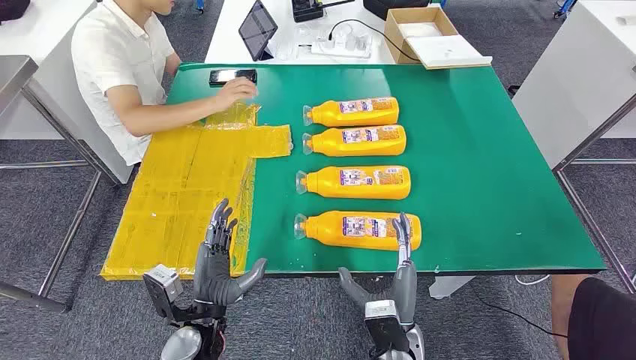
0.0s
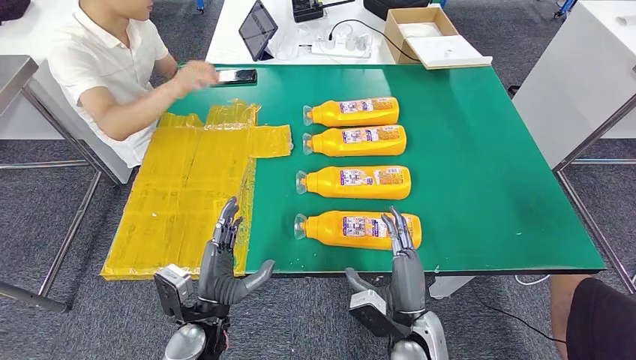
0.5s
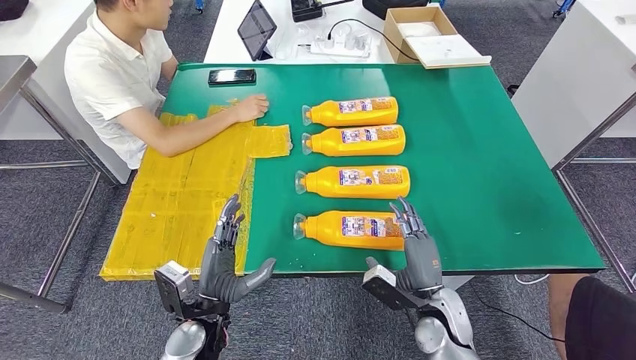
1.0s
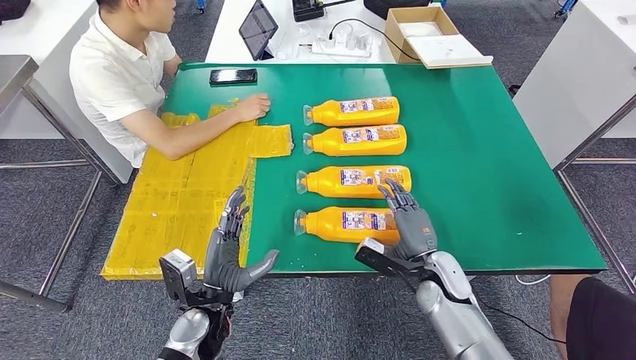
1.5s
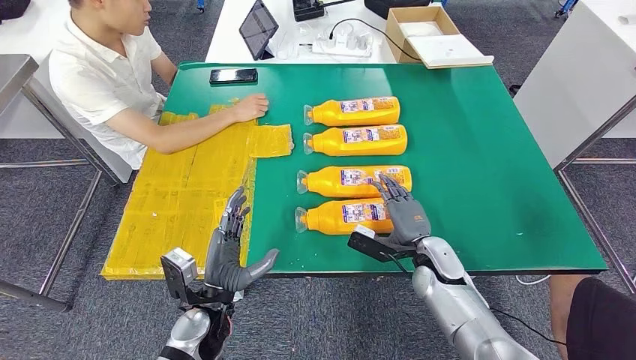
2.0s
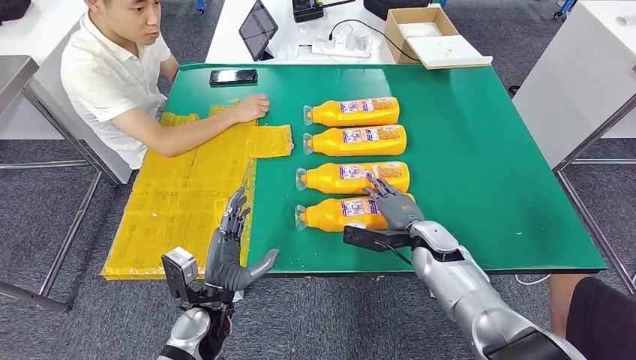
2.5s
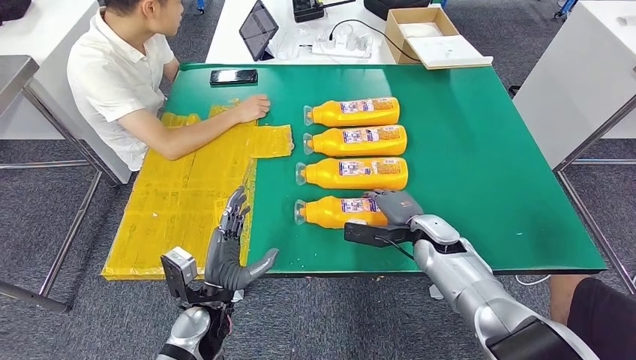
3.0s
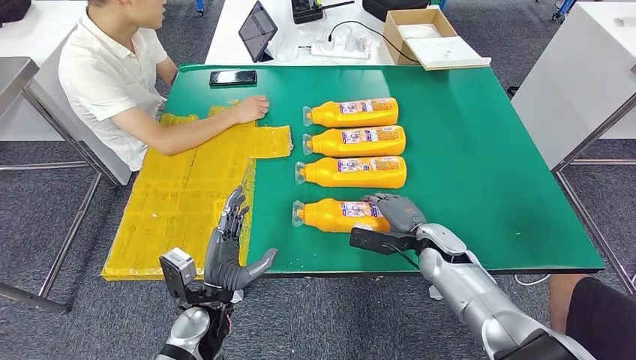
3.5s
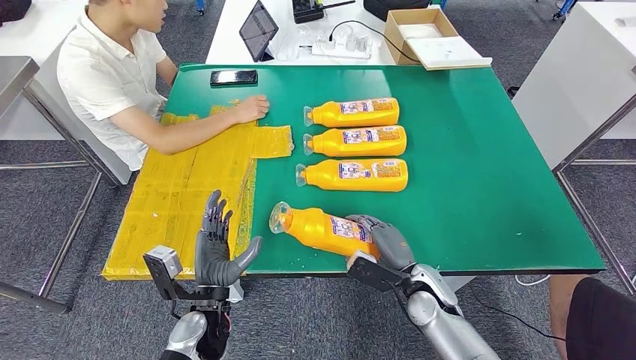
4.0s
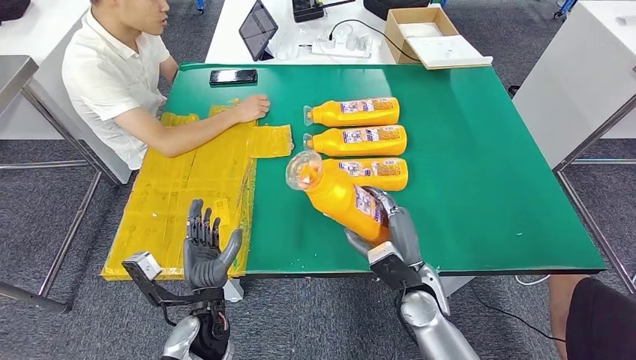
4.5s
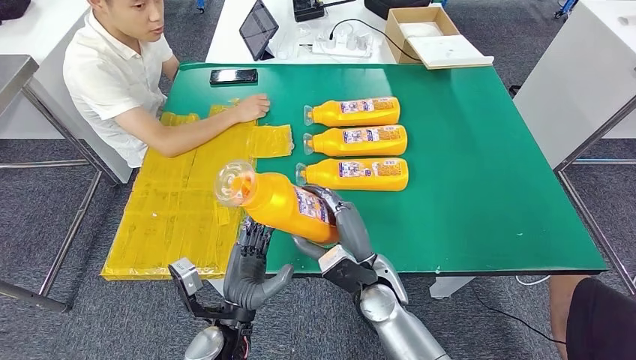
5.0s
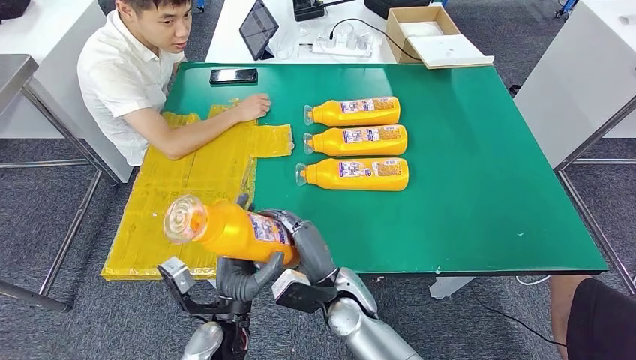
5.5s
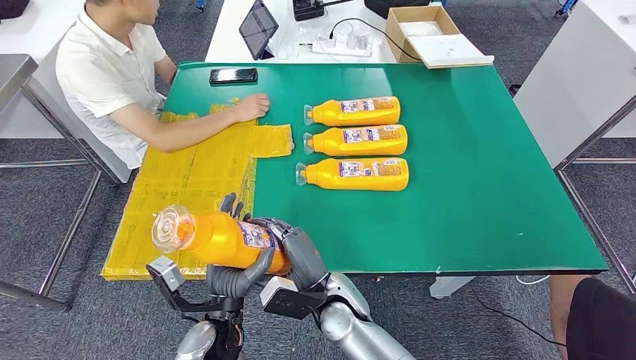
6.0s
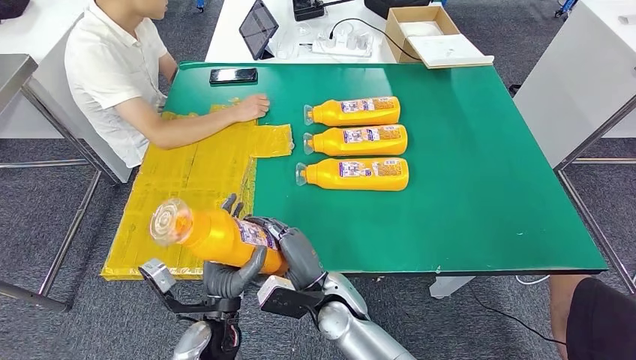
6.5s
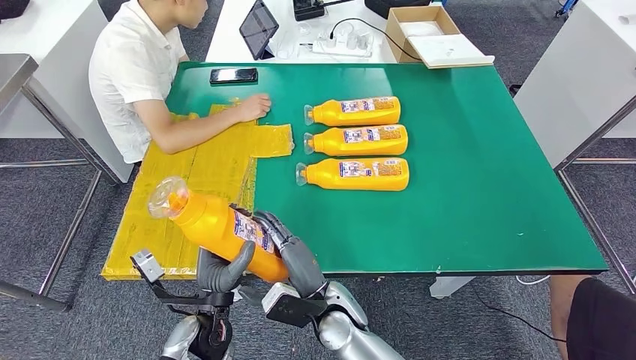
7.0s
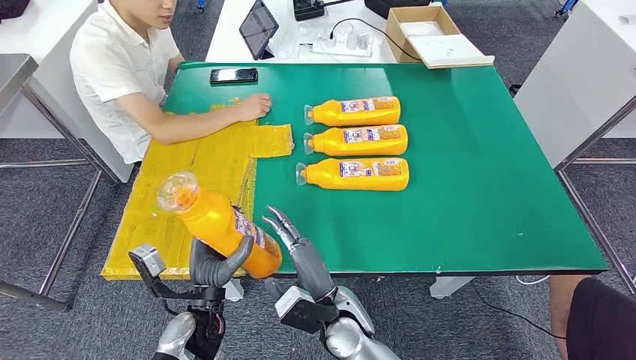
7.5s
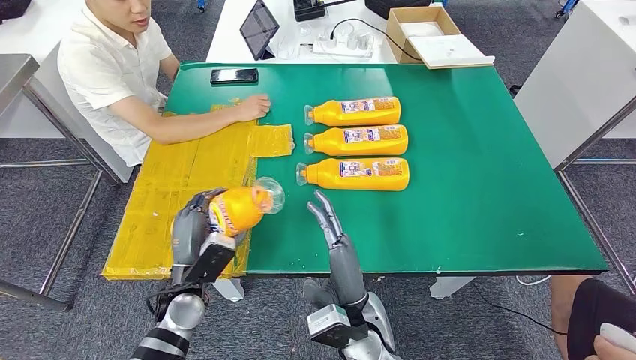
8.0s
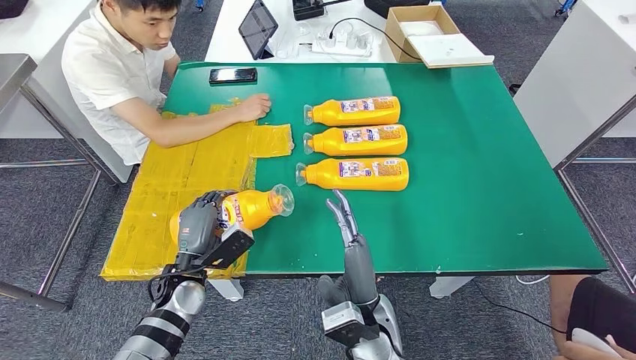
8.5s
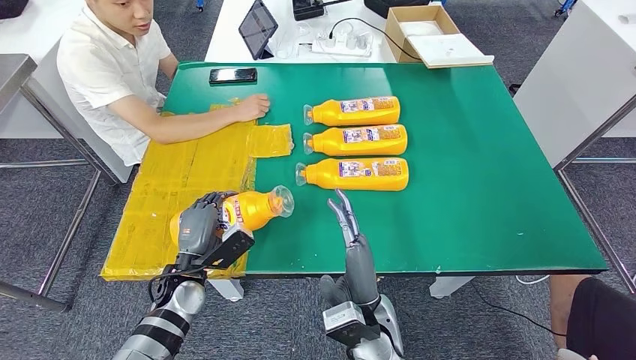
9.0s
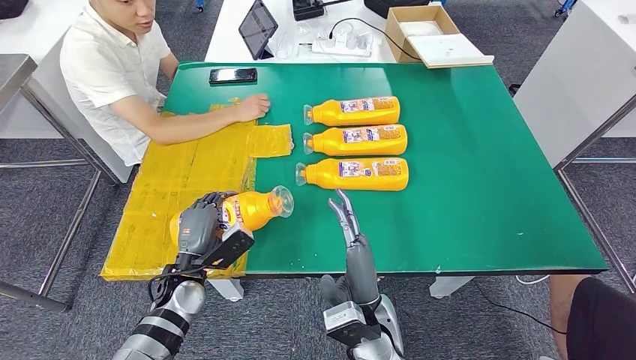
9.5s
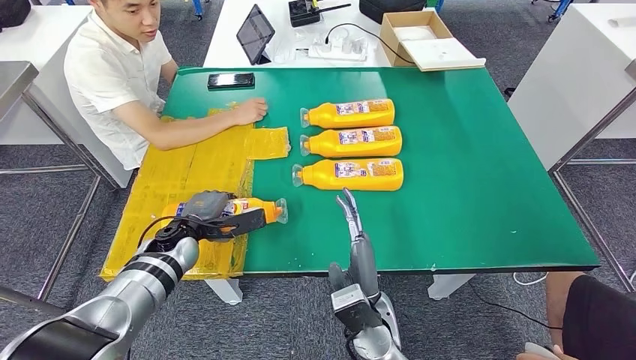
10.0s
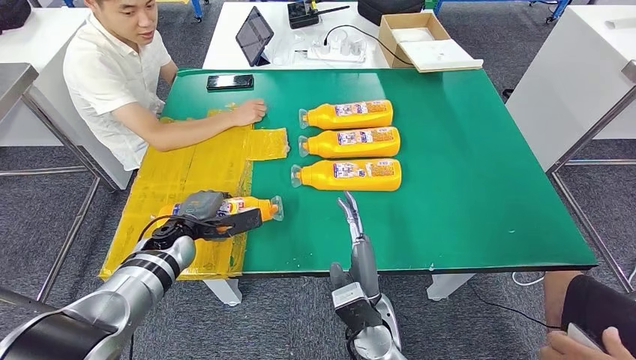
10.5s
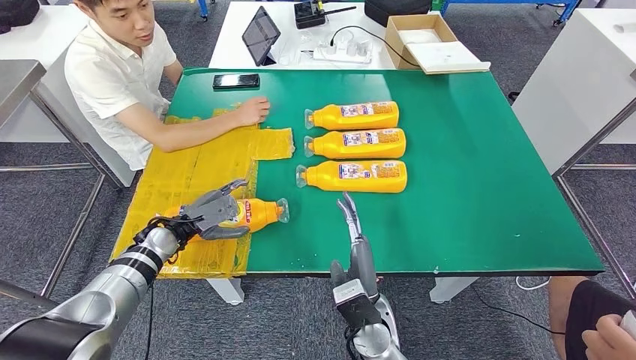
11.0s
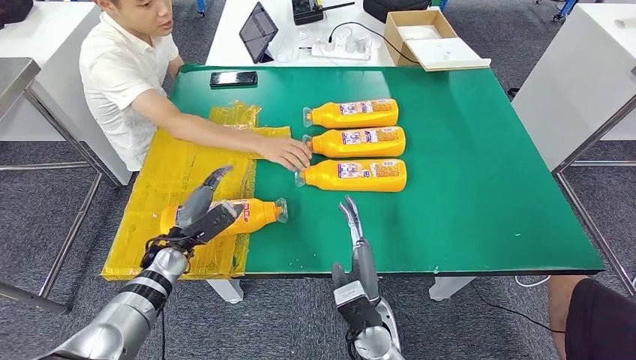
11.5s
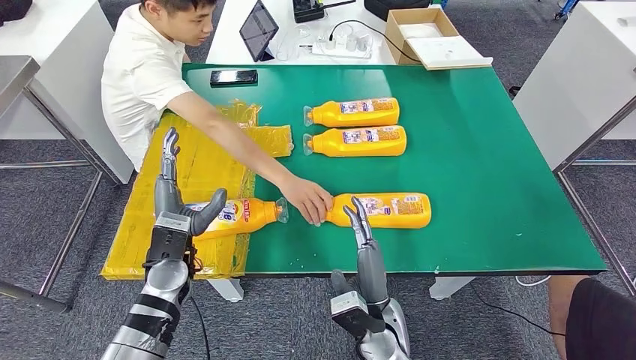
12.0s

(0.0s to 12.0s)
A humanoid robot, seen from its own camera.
Step, 0.0s - 5.0s: Take the bottle from the table.
2.0s - 4.0s: The right hand ends up approximately 5 cm from where it was.
4.0s - 6.0s: The right hand is displaced to the left by approximately 15 cm.
6.0s - 8.0s: The left hand shifts approximately 10 cm to the left and forward. Meanwhile the right hand ends up some 5 cm from where it was.

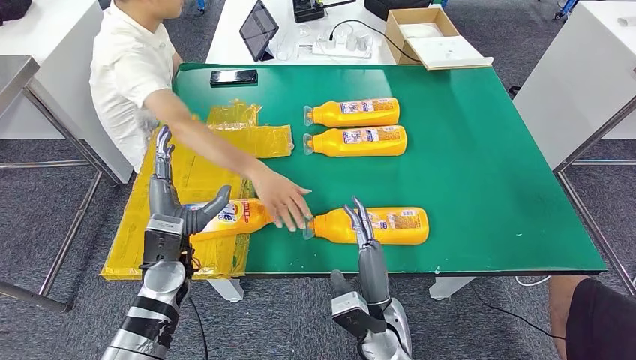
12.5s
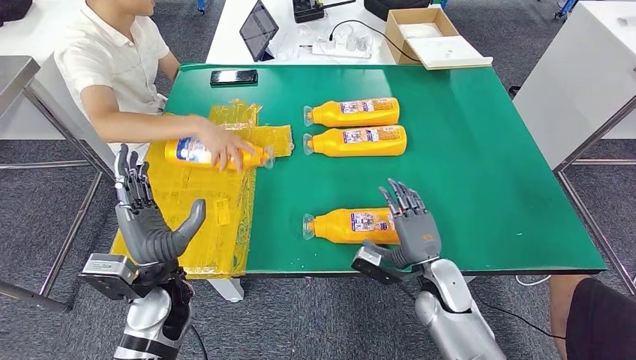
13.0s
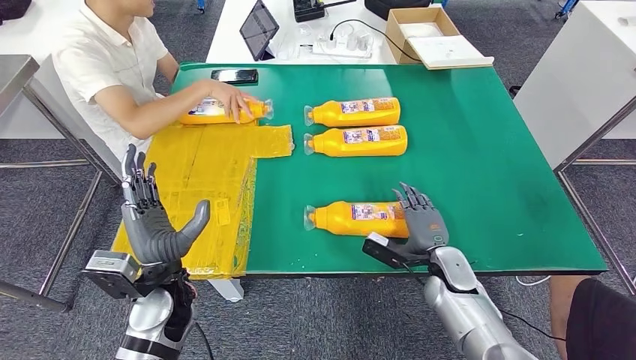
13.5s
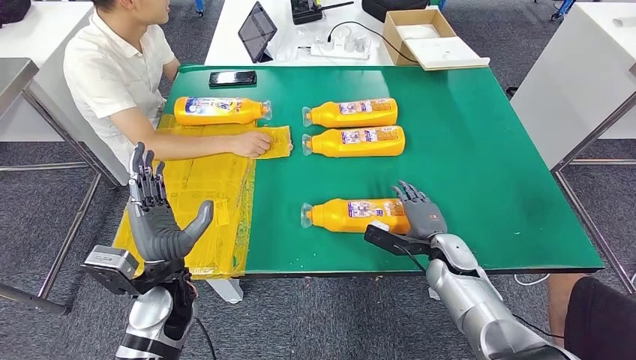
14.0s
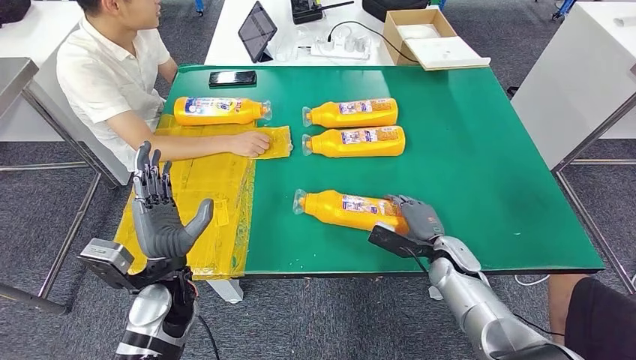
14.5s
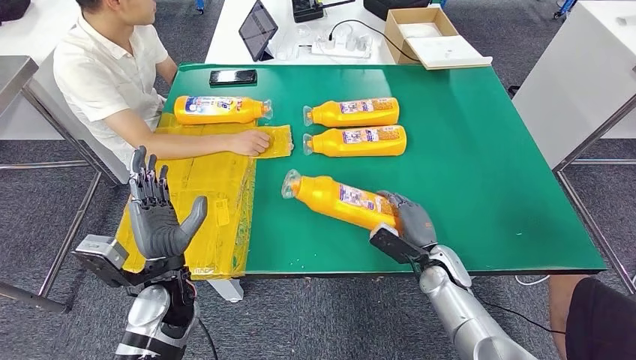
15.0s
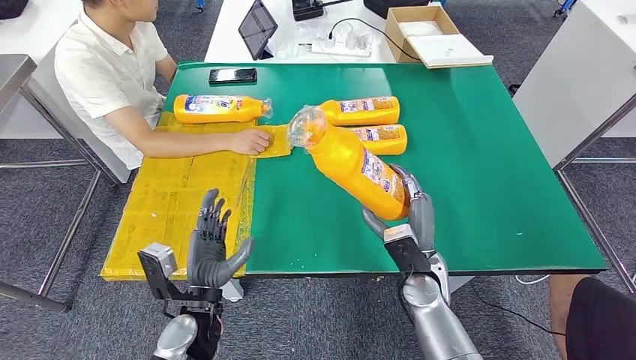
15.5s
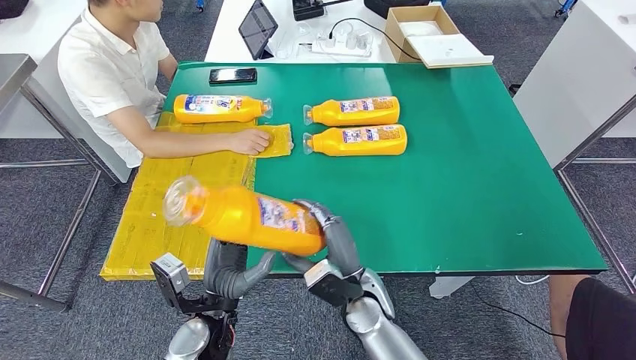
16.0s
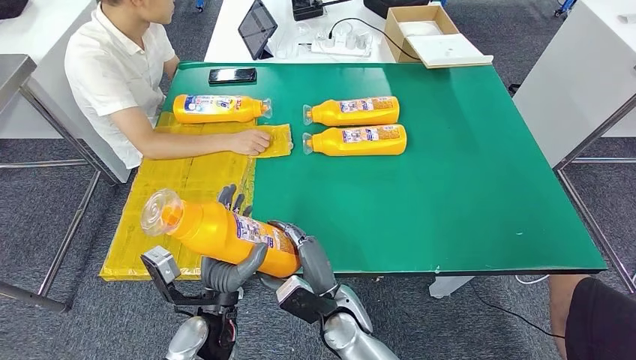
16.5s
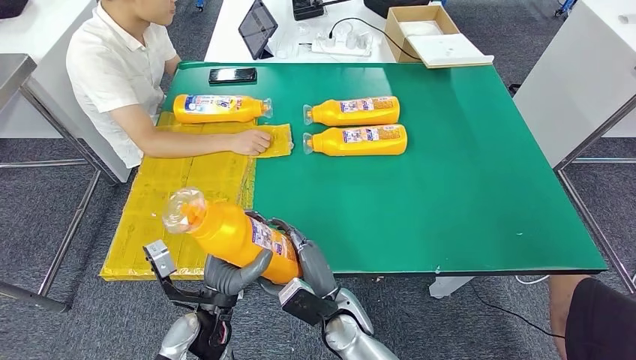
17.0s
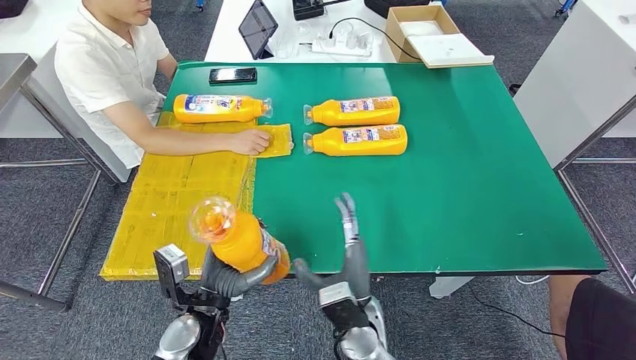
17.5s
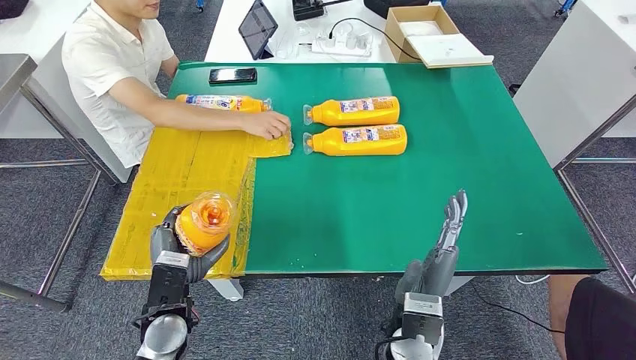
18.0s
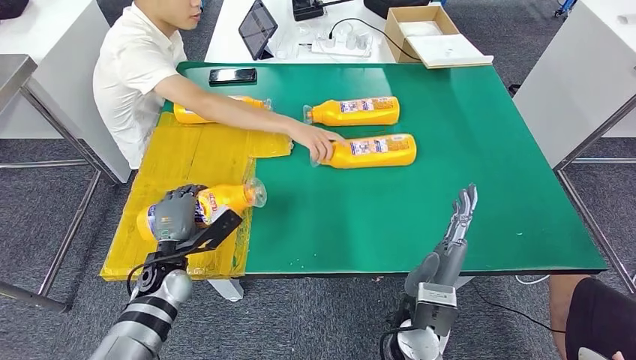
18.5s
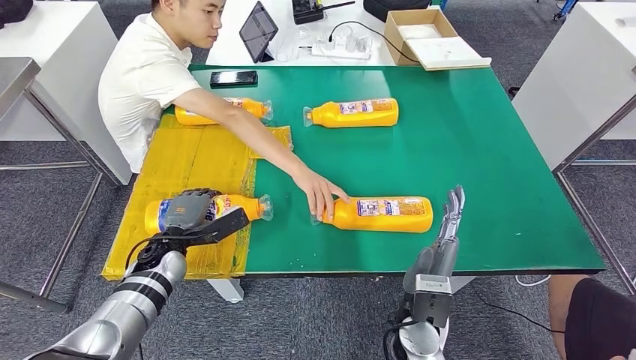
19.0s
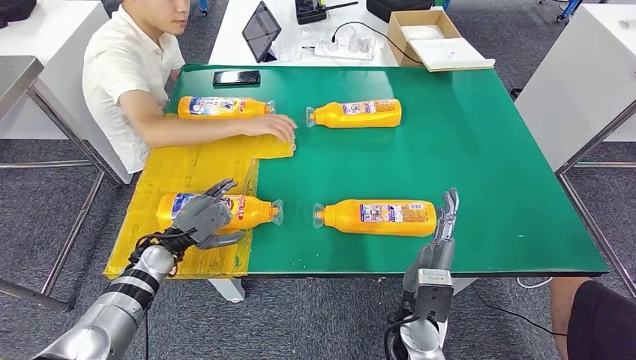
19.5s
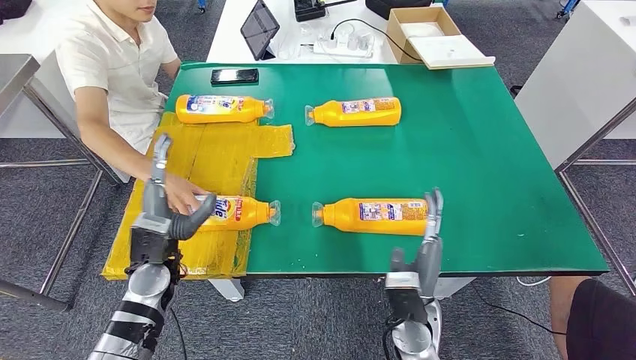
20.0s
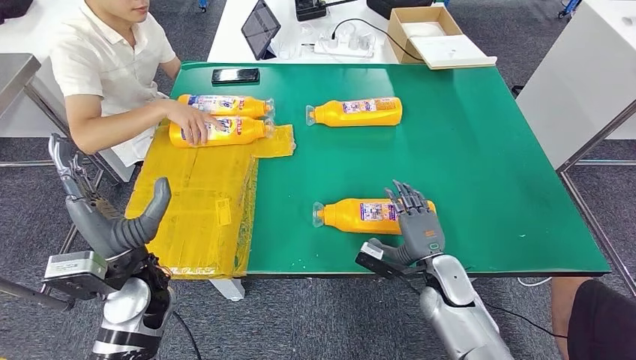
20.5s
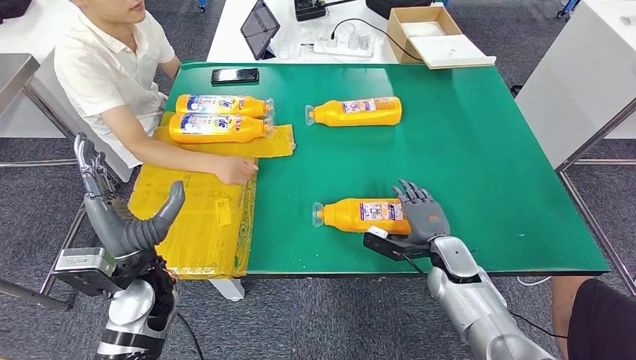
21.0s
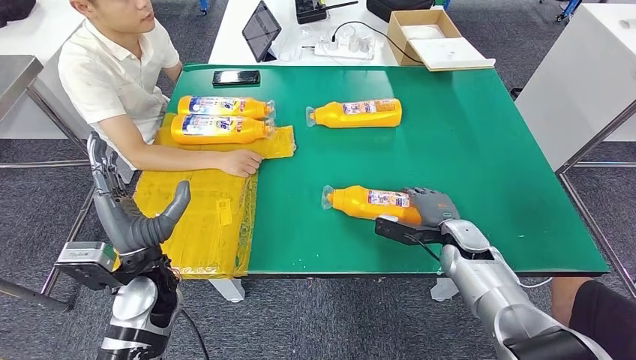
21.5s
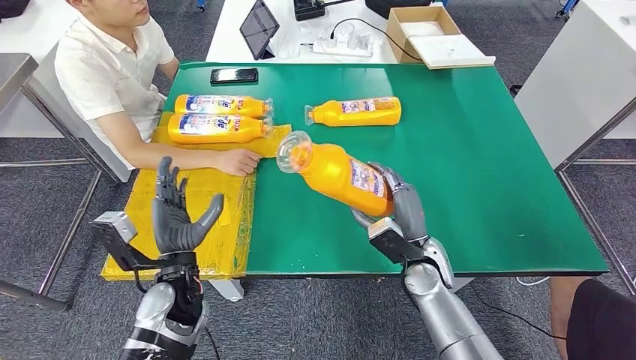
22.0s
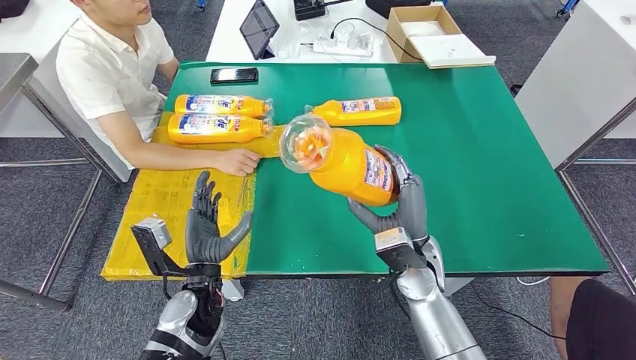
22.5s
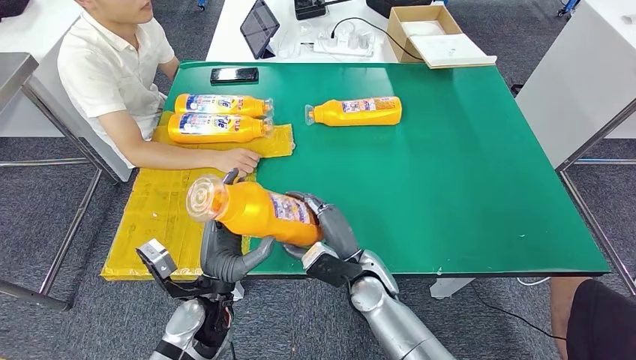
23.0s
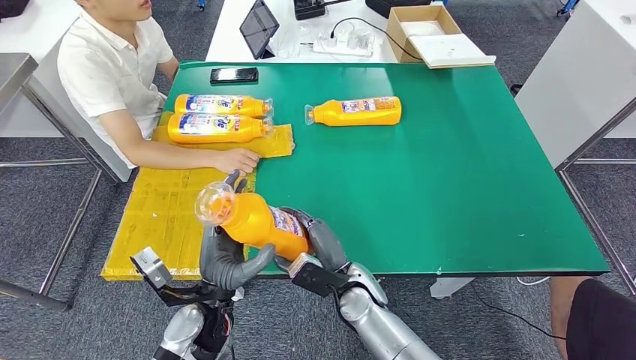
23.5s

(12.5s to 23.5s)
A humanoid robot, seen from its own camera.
Step, 13.5s - 17.0s: Pick up the bottle from the table.
Step, 17.5s - 21.0s: Flip the bottle to face forward.
16.0s - 18.0s: The left hand is displaced to the left by approximately 5 cm; the right hand travels backward and to the right by roughly 10 cm.
